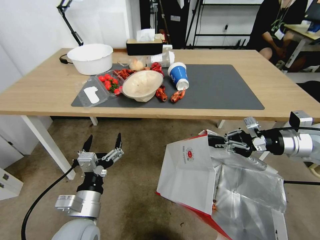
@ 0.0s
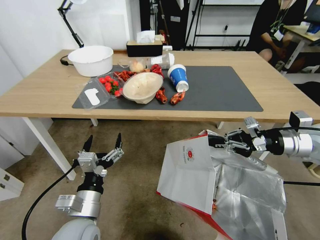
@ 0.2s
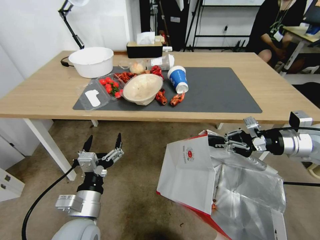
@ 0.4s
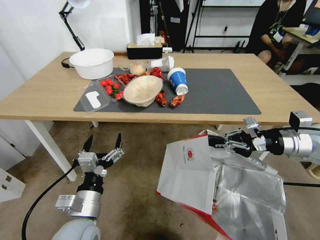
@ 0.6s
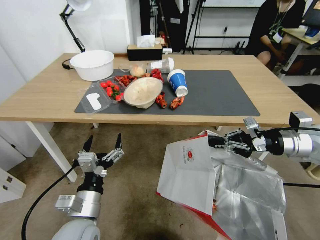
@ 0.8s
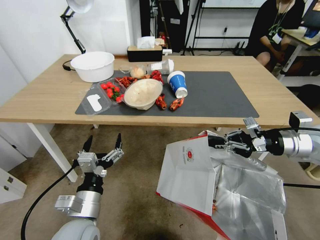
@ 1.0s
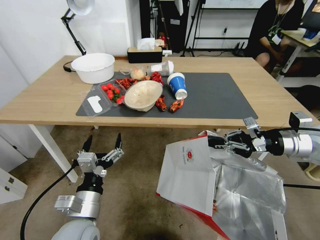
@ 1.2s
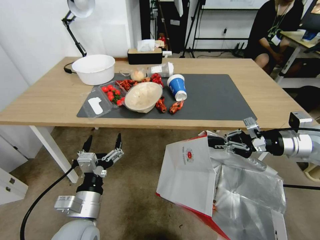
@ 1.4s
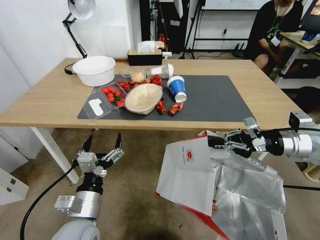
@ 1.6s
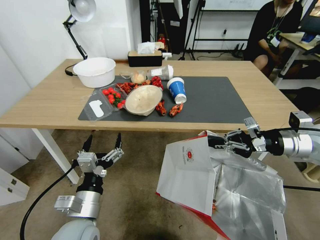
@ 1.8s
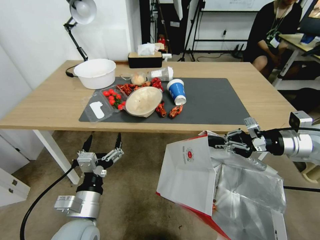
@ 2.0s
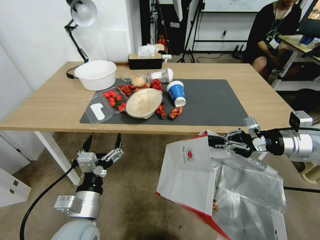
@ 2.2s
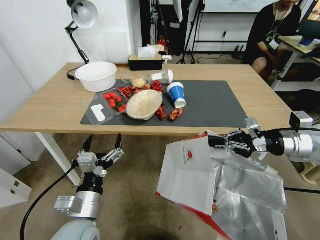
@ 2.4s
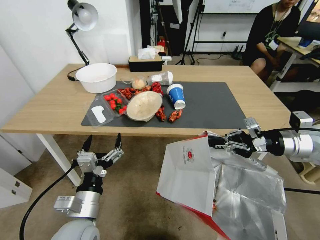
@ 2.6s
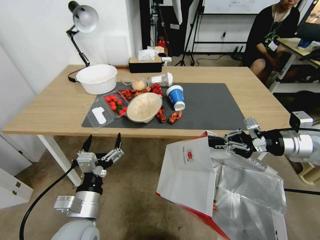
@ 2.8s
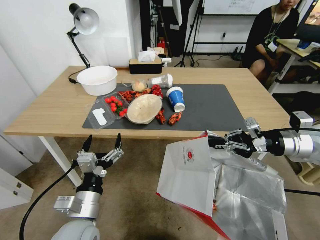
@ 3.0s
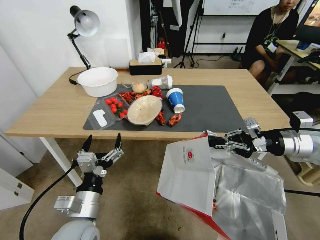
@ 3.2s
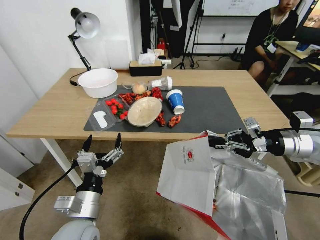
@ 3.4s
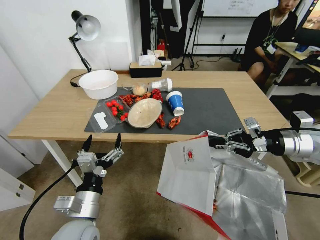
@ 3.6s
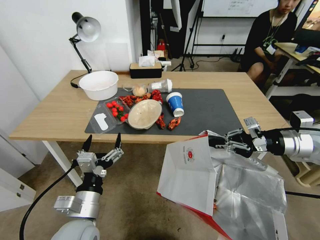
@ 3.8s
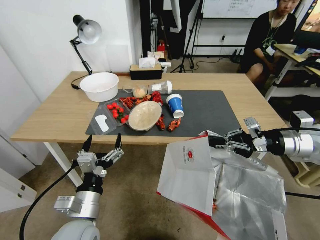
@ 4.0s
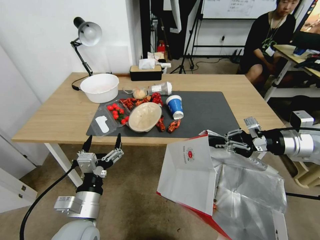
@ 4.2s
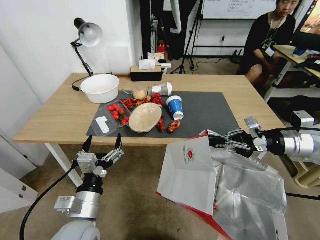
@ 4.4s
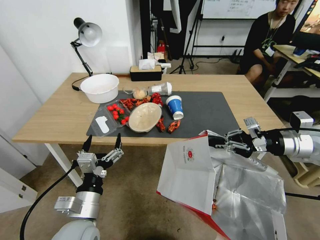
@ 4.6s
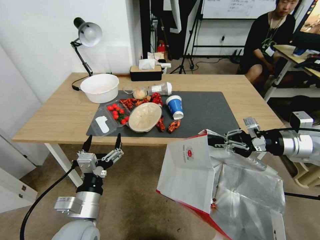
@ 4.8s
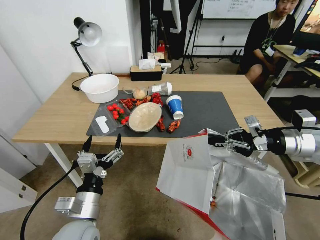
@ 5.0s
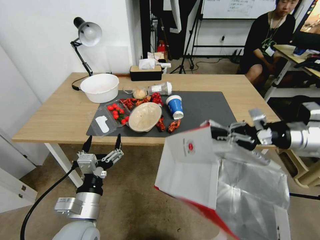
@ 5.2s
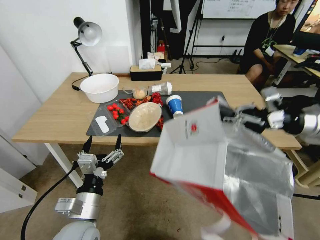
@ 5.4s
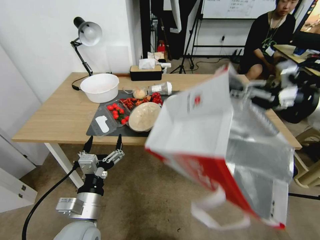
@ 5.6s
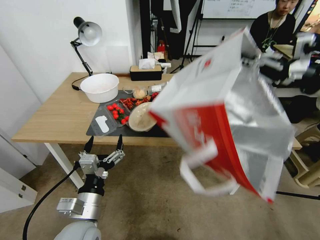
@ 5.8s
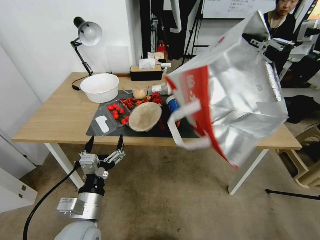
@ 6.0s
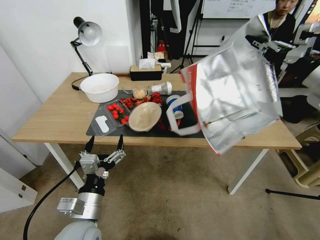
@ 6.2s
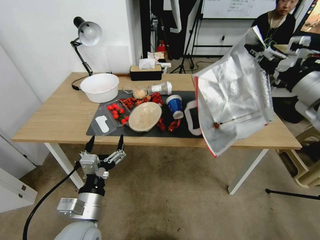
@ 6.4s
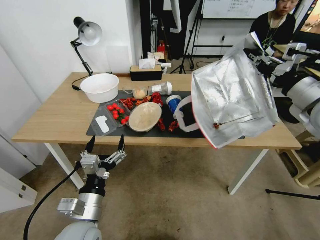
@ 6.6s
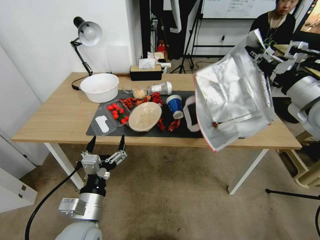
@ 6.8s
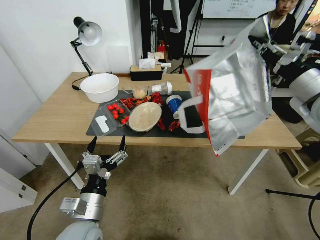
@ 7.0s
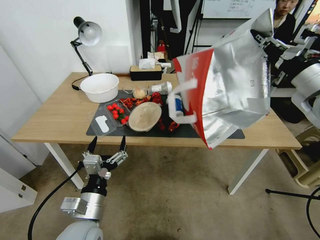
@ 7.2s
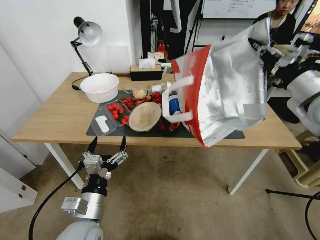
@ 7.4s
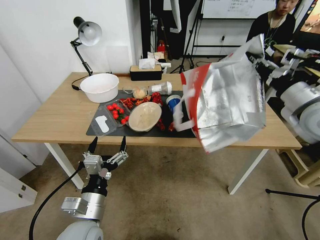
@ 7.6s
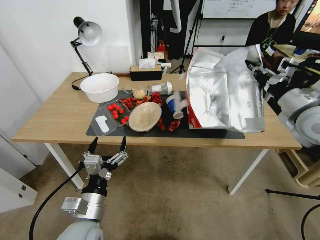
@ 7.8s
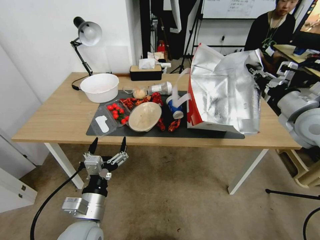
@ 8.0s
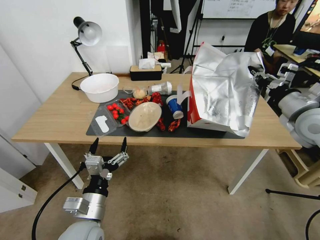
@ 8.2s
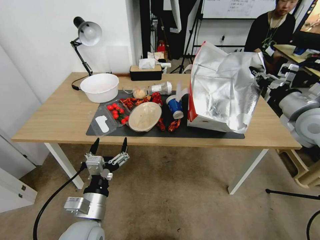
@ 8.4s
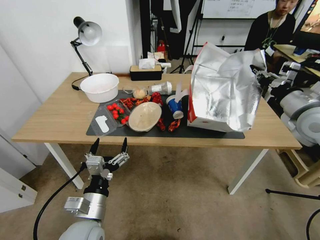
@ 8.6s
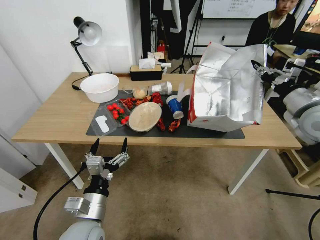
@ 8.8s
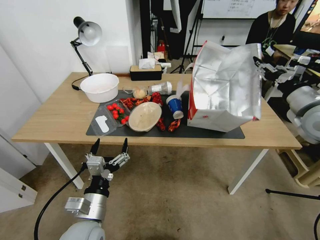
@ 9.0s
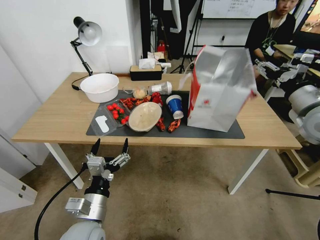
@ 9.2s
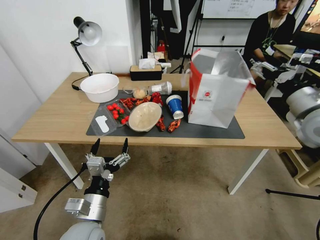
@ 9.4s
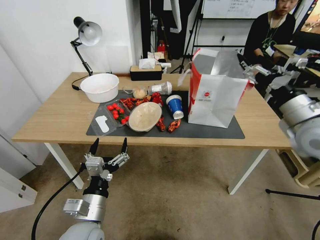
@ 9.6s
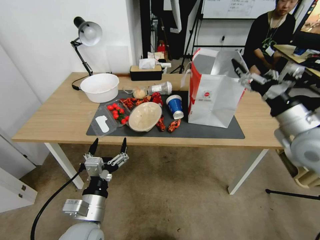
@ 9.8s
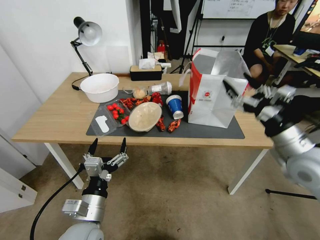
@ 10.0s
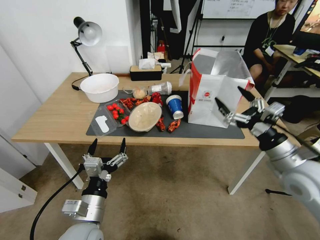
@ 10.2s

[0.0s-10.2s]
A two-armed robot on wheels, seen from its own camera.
Task of the whole recording: Pick up the food delivery bag from the floor and place it on the table.
4.4s to 5.8s: The right gripper shifts about 15 cm upward.
7.2s to 8.8s: The right gripper goes approximately 5 cm downward.
8.8s to 10.2s: The right gripper goes roughly 15 cm backward, downward and to the left, and opens up.

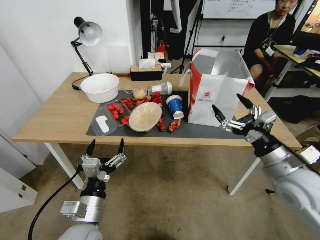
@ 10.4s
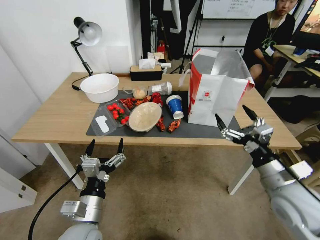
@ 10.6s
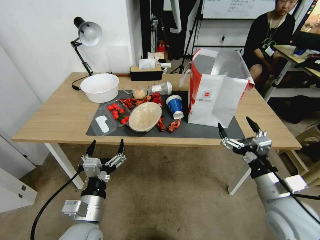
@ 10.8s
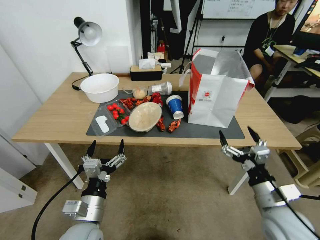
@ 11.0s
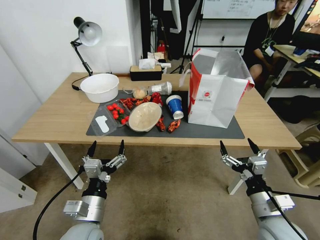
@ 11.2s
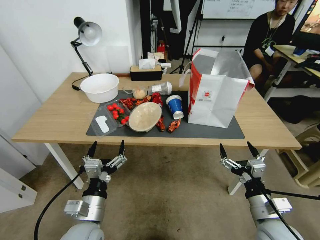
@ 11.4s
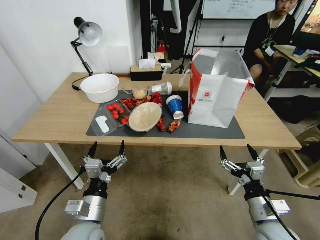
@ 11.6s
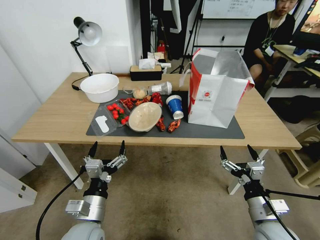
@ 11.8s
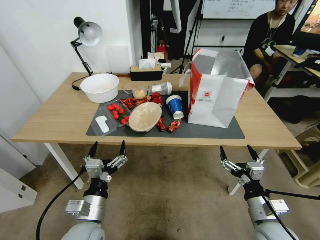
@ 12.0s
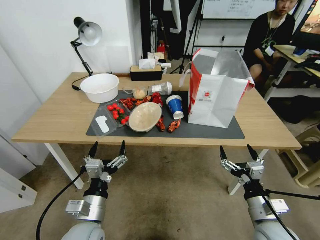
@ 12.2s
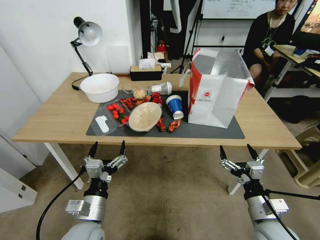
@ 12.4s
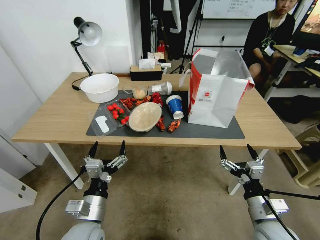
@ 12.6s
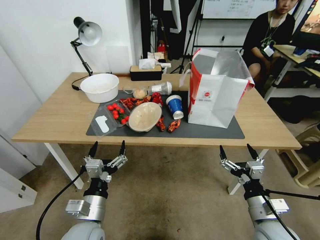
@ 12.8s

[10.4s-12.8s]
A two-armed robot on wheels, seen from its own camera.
Task of the whole recording: Pick up the food delivery bag from the floor and place it on the table.
10.4s to 11.6s: The right gripper is displaced downward and backward by some 15 cm.
11.6s to 12.8s: Both grippers stay put.
